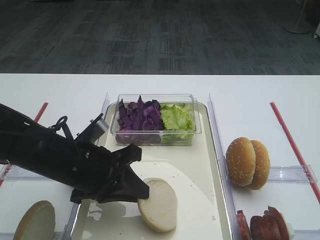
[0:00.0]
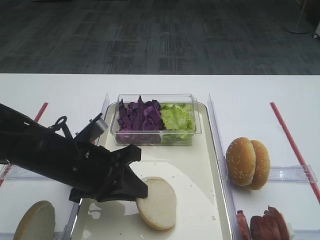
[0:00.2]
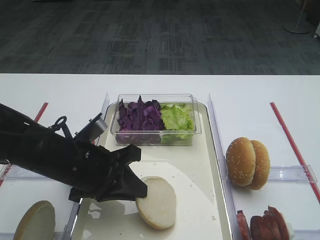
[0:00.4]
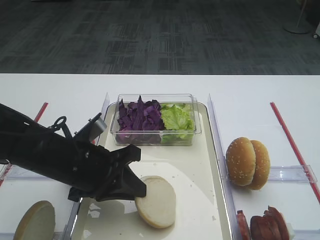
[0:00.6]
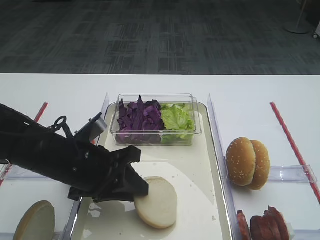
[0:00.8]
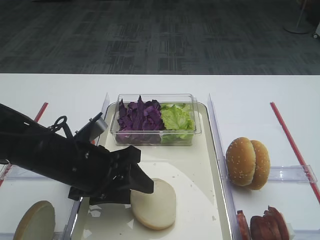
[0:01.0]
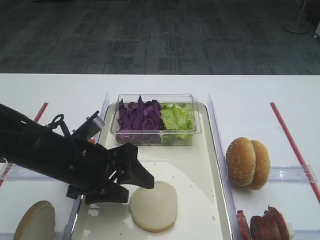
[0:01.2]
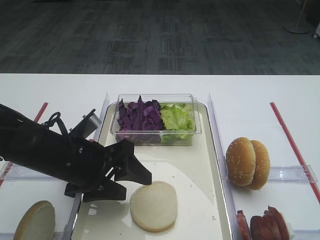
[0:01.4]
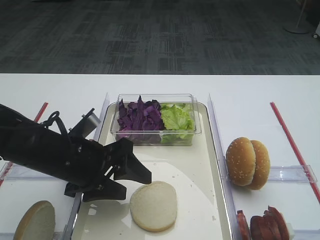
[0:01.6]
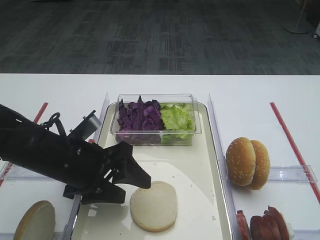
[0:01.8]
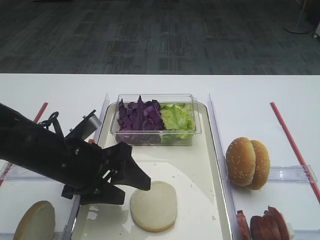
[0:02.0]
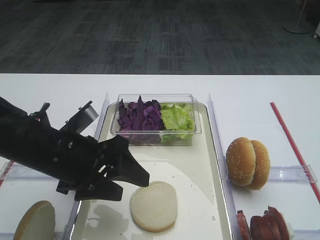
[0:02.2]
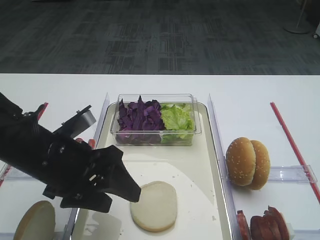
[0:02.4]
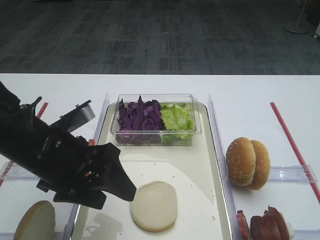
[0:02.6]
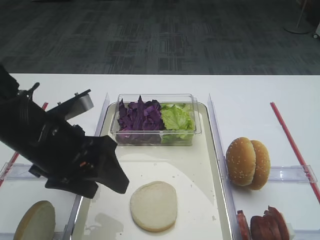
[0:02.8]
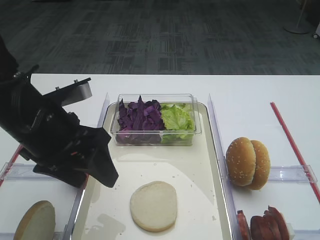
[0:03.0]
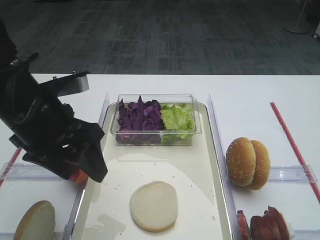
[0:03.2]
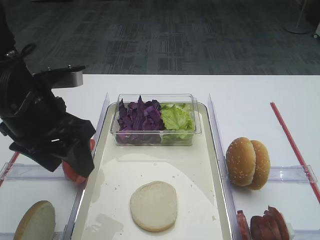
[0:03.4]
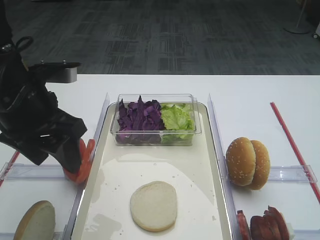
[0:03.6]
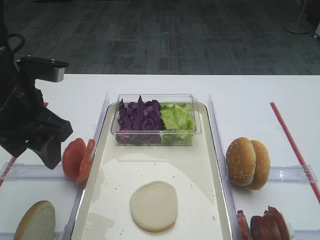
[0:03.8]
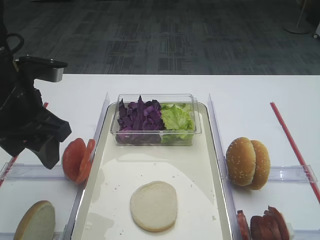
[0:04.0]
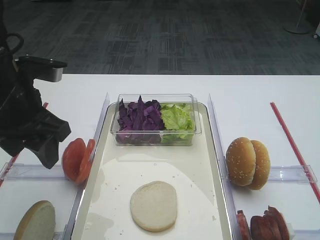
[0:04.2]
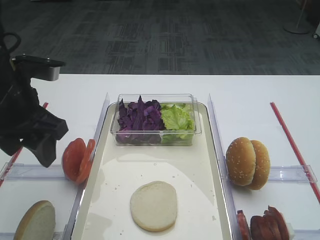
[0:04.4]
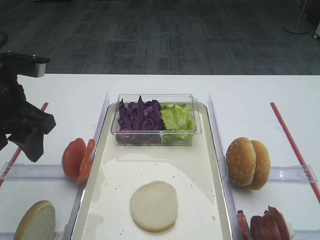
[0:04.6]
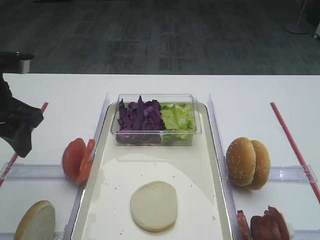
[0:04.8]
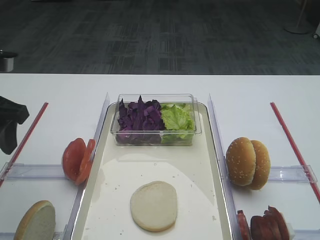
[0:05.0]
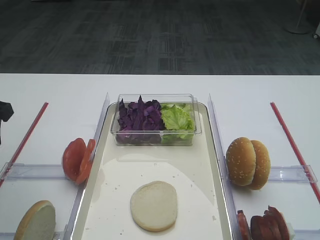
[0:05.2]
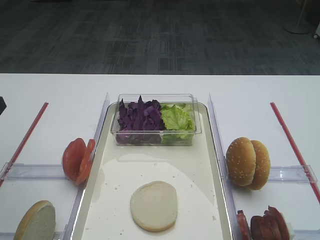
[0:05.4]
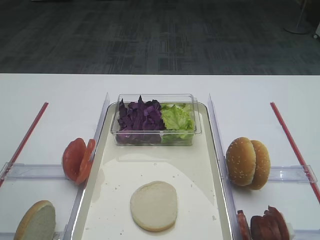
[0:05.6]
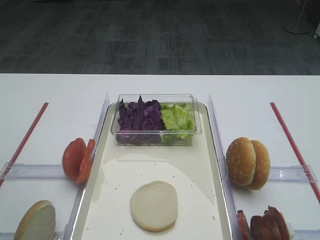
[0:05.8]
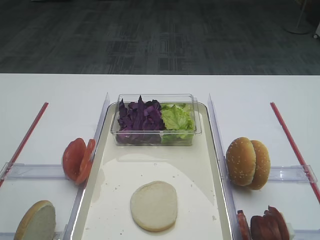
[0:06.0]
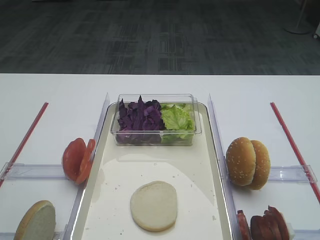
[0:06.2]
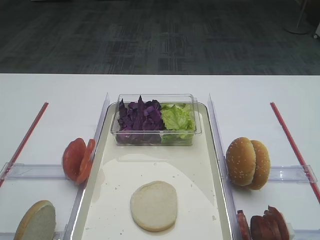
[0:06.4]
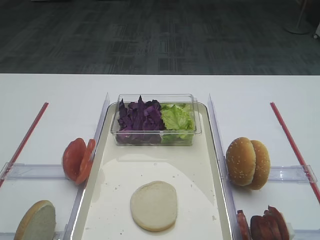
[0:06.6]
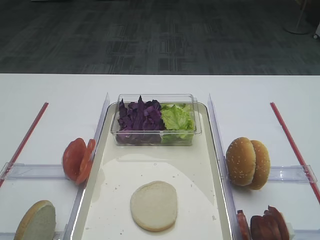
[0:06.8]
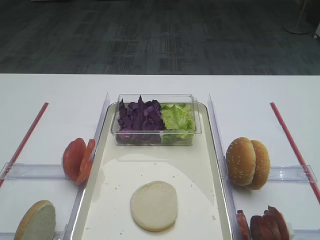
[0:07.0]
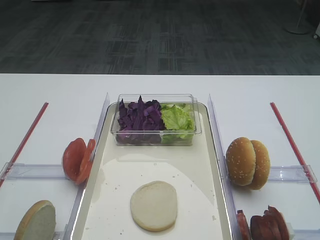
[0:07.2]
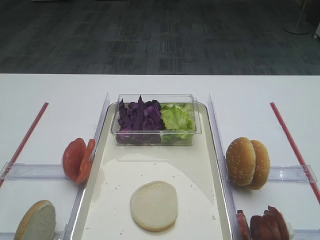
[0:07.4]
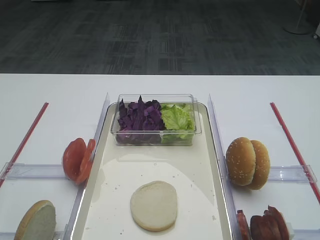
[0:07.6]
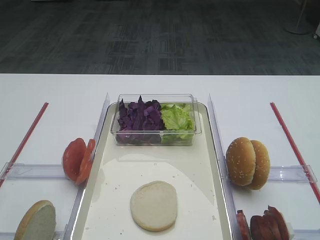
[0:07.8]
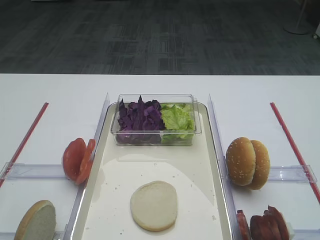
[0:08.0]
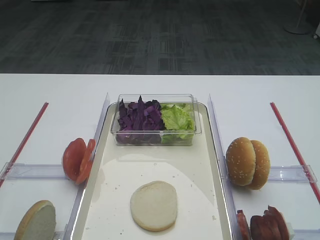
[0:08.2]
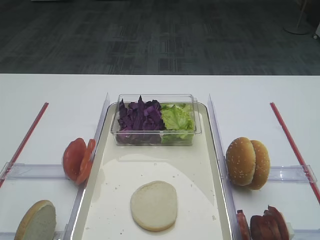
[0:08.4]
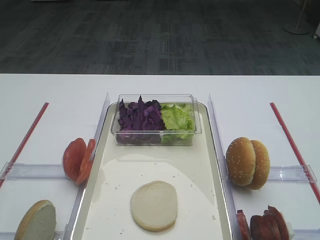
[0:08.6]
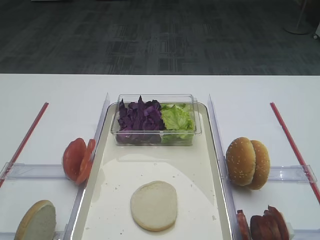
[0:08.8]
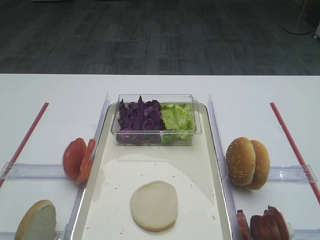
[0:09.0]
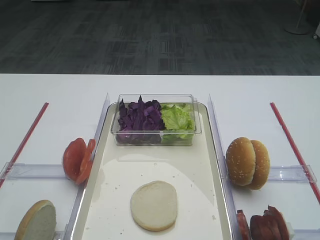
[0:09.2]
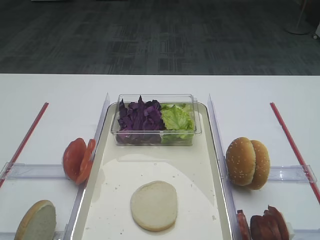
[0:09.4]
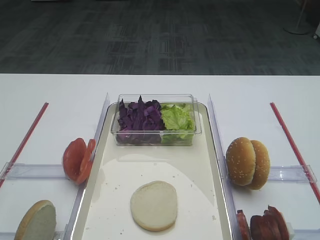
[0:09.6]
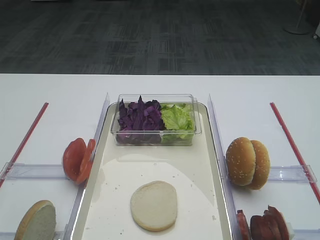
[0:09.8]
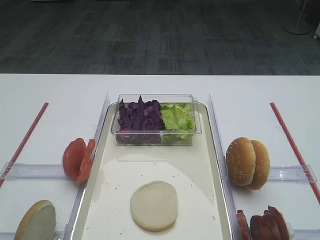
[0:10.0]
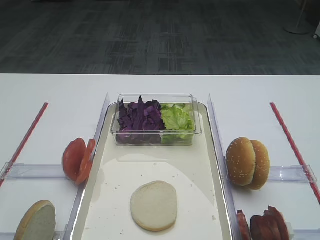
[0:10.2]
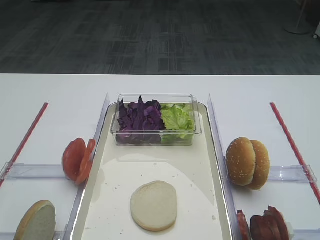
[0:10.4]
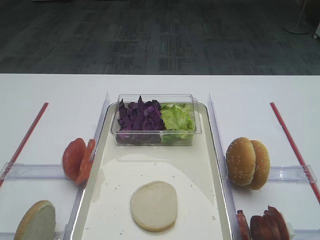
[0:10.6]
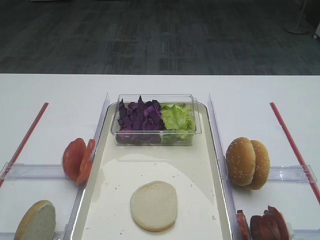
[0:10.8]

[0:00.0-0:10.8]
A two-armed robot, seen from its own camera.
0:00.0 to 0:01.6: The left gripper opens.
0:01.6 to 0:03.0: The left gripper shifts roughly 10 cm upward.
0:03.0 to 0:04.6: The left gripper travels to the left by approximately 5 cm.
0:04.6 to 0:06.2: The left gripper is displaced upward, backward and to the left by roughly 15 cm.
0:09.2 to 0:10.8: Both grippers stay put.
